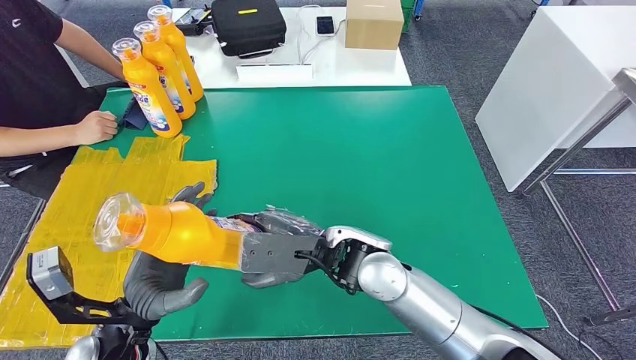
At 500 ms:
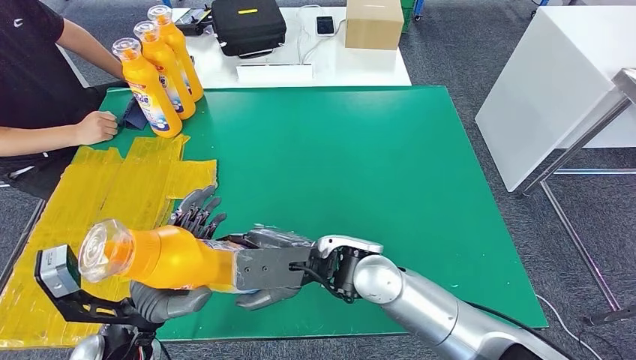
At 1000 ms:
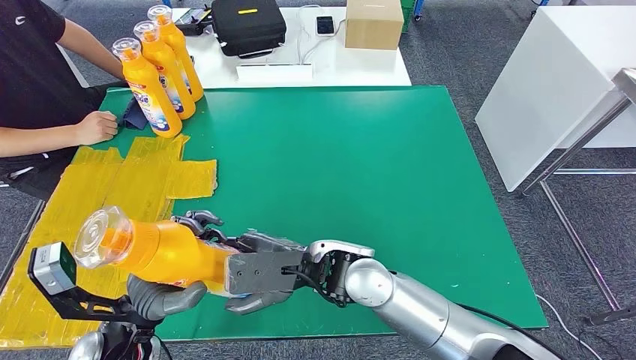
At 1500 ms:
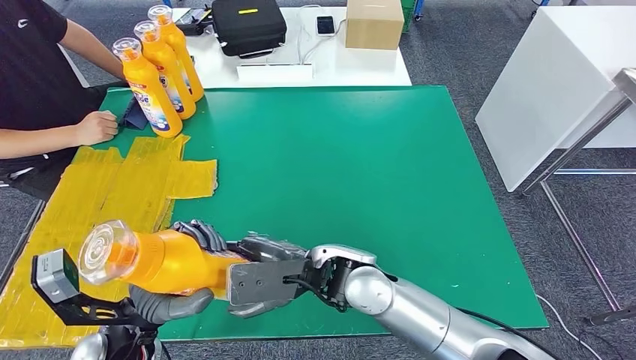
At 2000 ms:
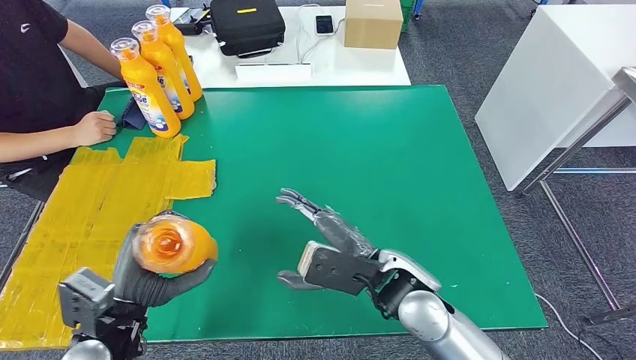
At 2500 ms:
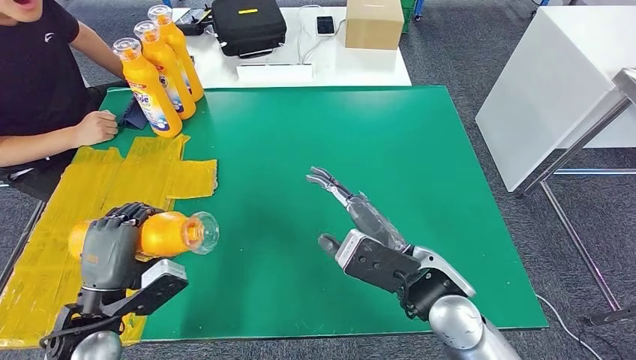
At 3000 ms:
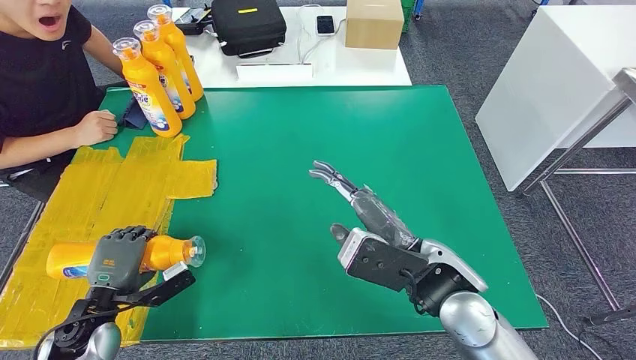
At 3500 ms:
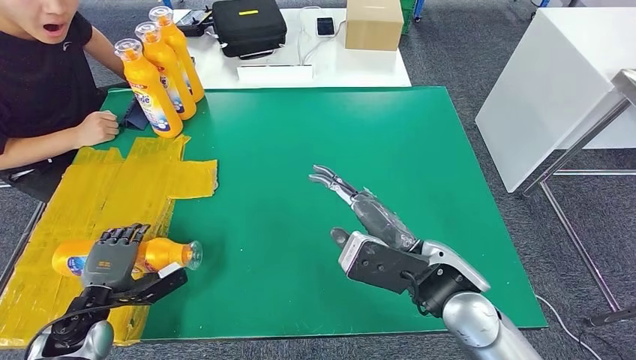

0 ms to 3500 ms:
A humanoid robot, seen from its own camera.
Step, 0 ms to 3500 ms: Flip the fast-moving consumer goods bottle to the front side.
0 ms to 2000 ms: The right hand travels to the right by approximately 5 cm.
